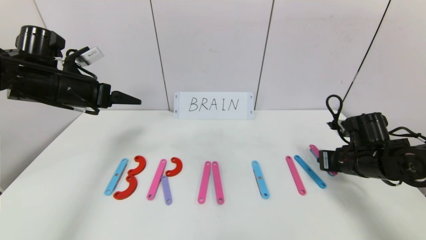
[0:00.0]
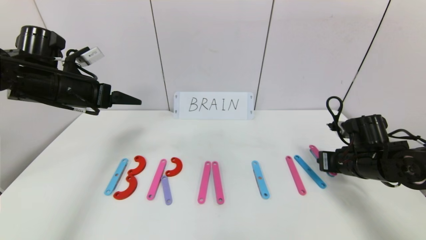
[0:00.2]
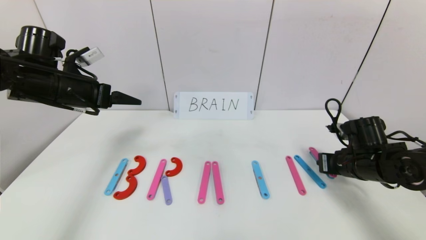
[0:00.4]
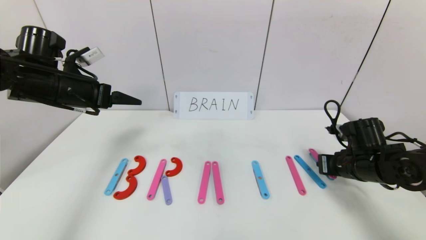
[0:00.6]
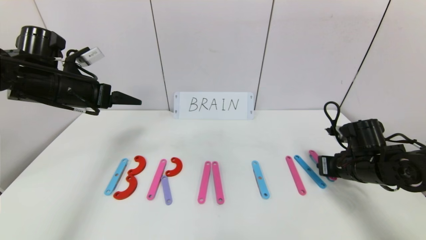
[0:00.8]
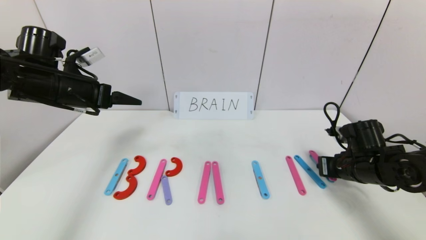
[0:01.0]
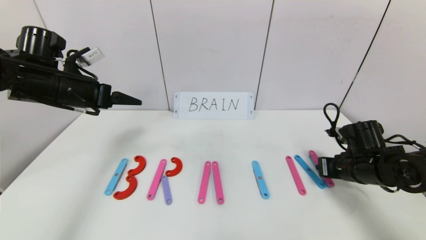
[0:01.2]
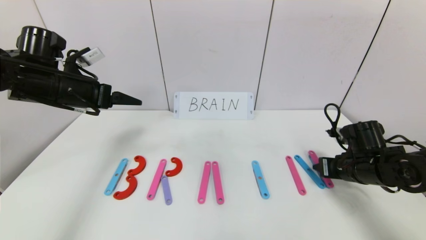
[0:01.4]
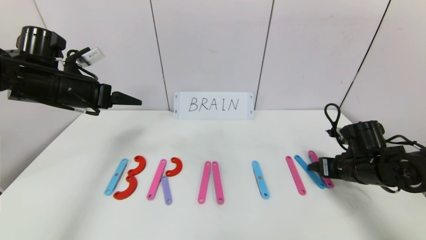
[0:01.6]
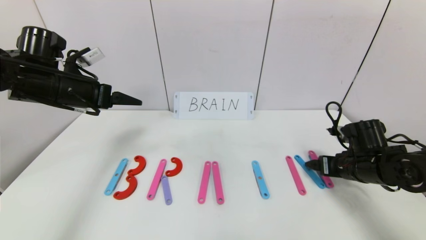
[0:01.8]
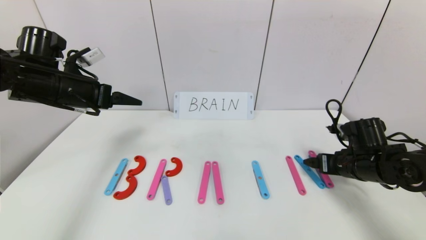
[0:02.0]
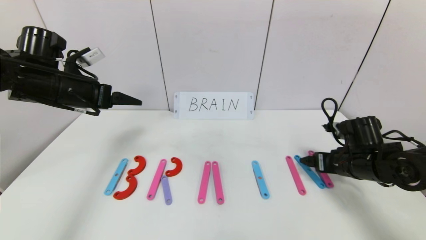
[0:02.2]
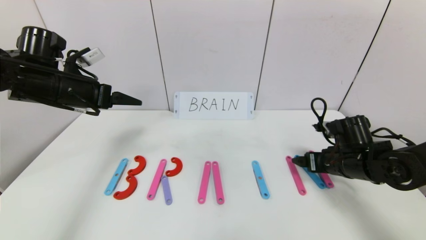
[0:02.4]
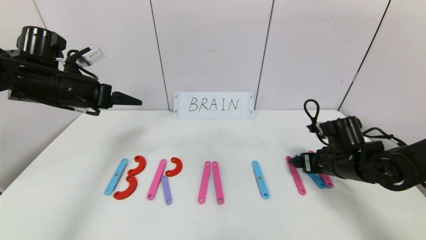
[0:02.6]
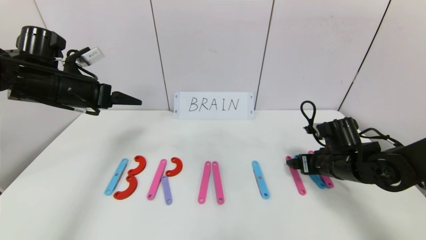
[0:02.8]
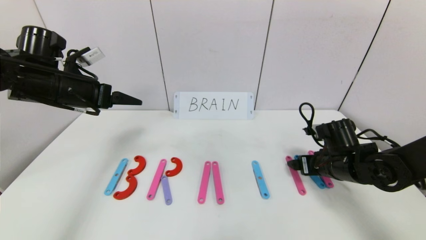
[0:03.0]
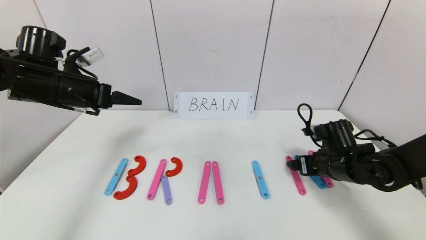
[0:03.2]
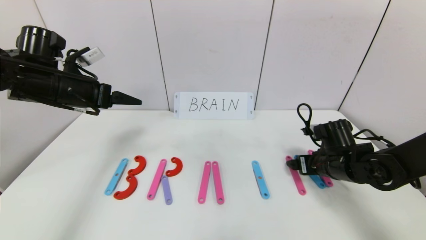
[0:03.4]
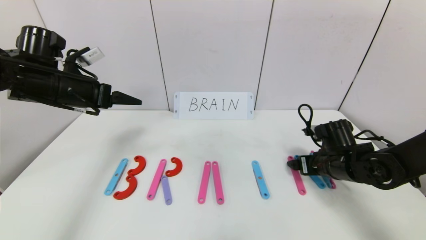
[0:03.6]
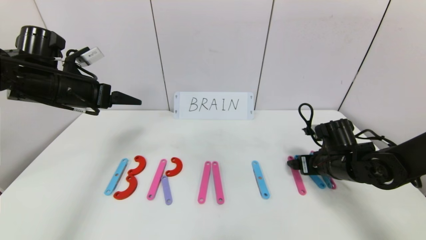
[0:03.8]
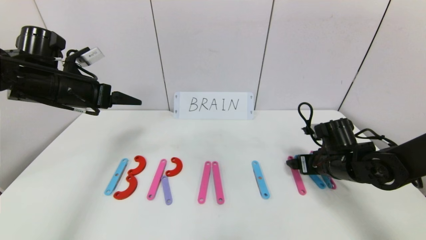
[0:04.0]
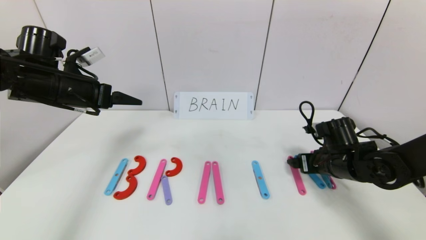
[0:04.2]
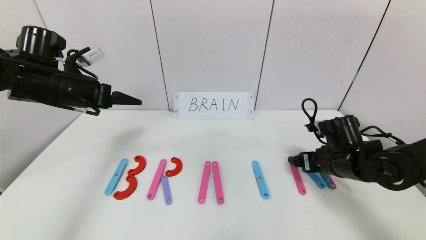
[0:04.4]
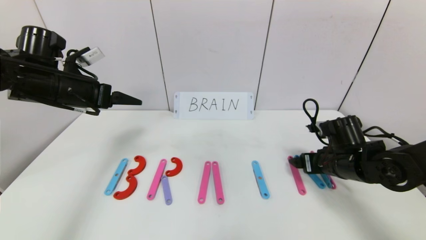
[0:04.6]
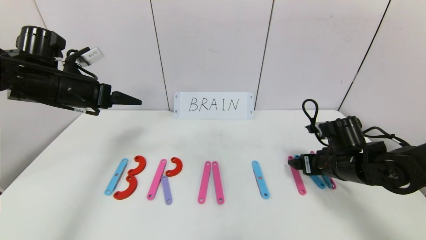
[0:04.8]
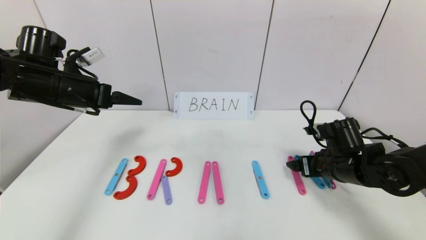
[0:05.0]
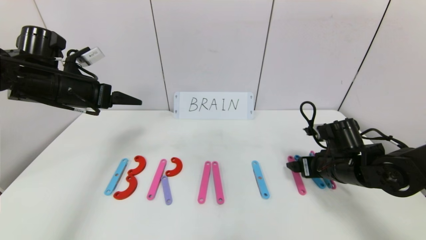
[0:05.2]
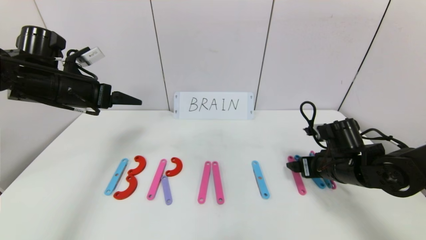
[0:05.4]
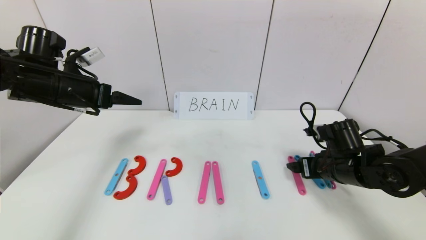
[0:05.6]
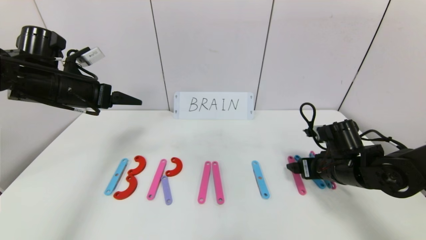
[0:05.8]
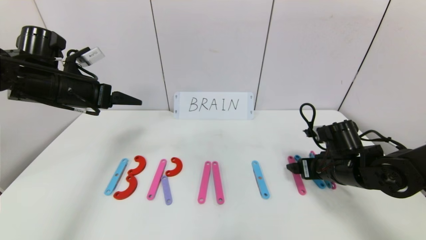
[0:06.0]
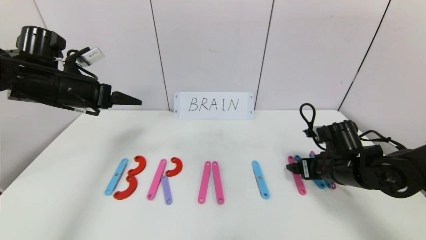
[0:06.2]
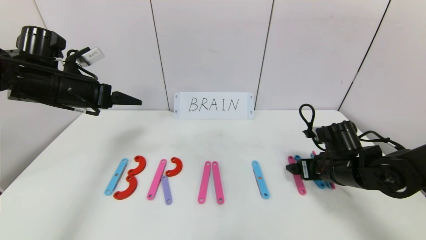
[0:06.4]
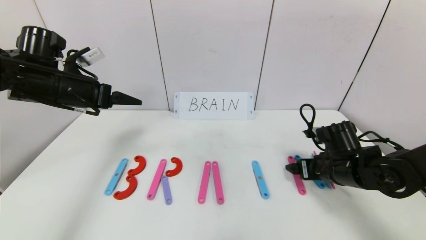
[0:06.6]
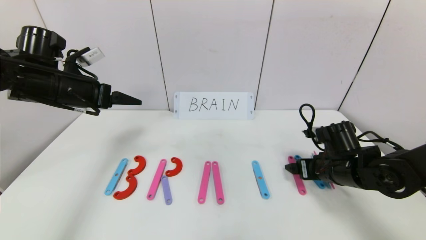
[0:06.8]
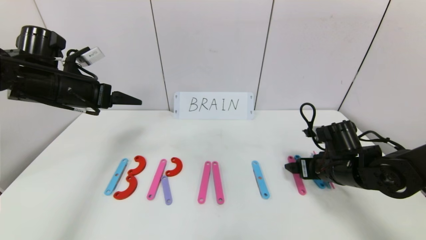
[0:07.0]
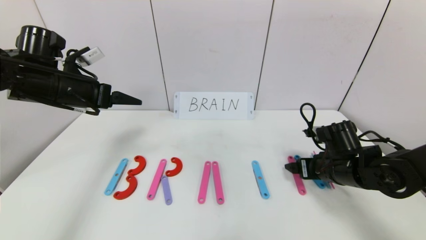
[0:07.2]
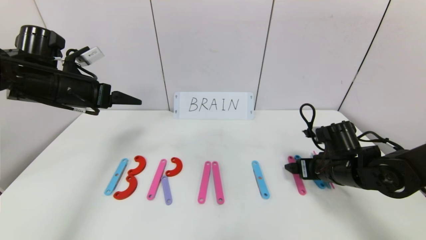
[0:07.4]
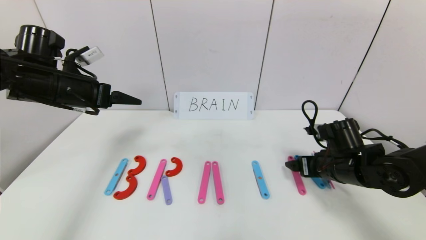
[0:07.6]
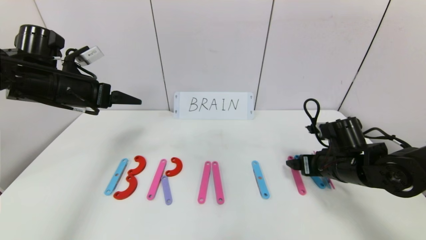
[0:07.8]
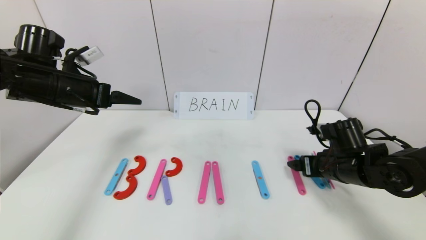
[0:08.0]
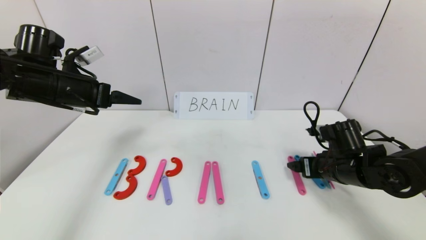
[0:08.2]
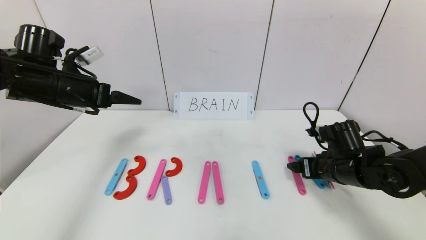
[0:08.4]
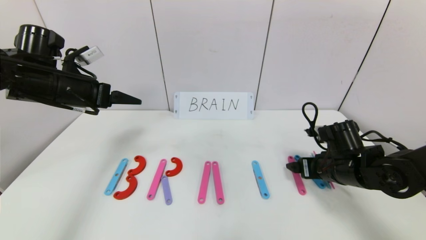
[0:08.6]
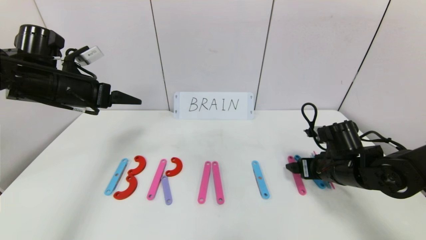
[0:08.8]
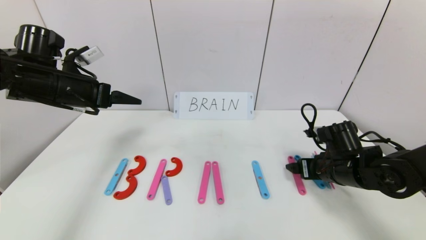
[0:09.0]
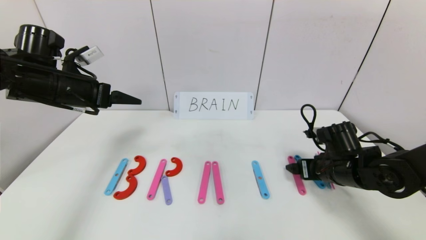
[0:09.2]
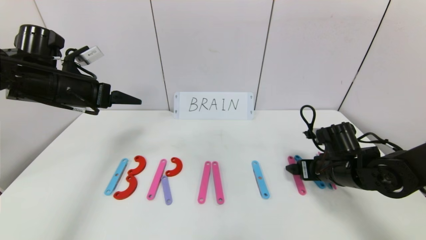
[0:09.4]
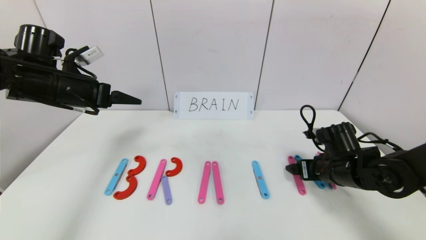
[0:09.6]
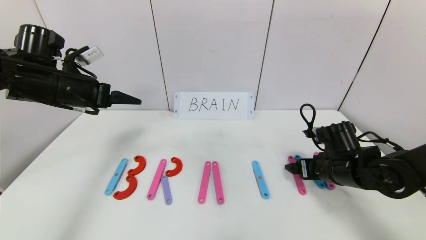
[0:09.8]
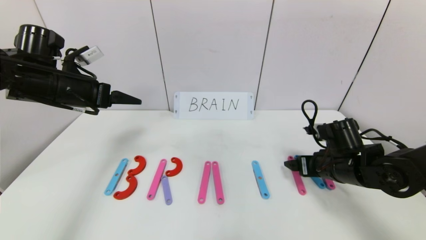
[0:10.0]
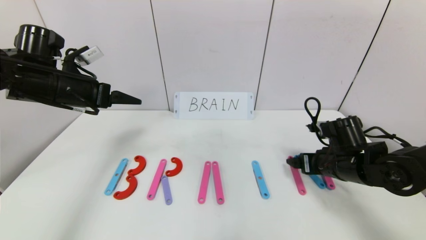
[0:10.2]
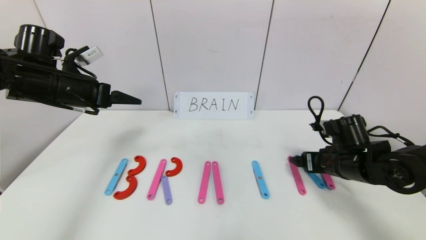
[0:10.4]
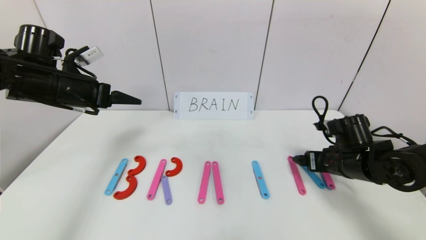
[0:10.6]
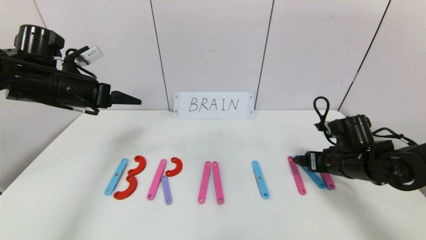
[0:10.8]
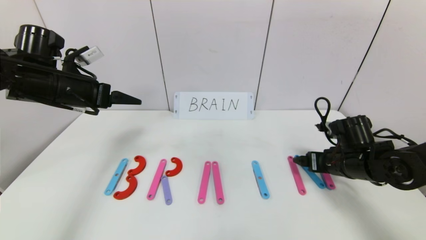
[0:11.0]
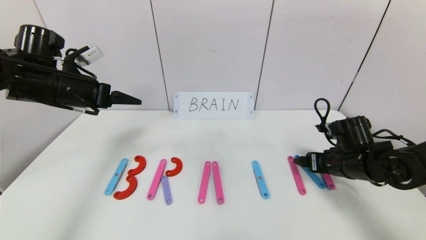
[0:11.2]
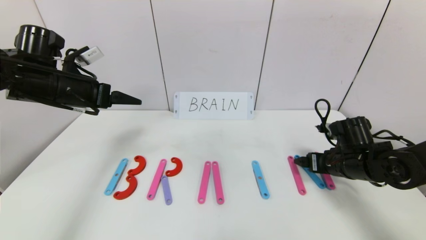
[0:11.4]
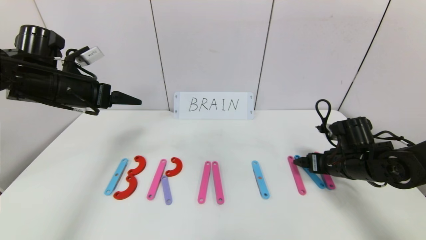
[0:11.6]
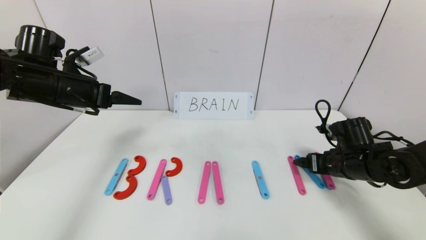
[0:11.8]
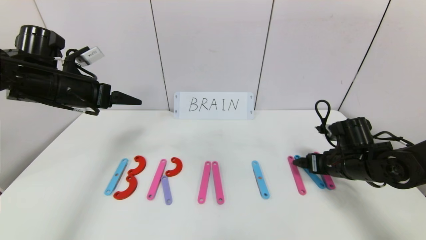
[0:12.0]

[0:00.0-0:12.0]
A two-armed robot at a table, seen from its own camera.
Task of the whole recording: rearrange the word baai as brain.
0:00.0 to 0:01.6: The right gripper opens up.
0:01.6 to 0:03.0: The grippers stay close to where they were, moving slightly.
0:03.0 to 0:04.4: Both grippers stay about where they are.
0:04.4 to 0:06.0: The grippers make only small movements.
0:06.0 to 0:09.0: Both grippers stay about where they are.
0:09.0 to 0:12.0: The grippers move only a little.

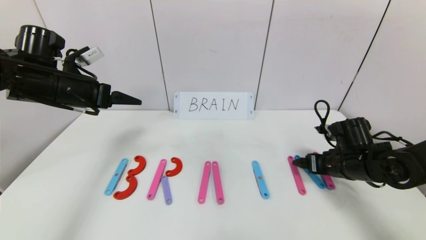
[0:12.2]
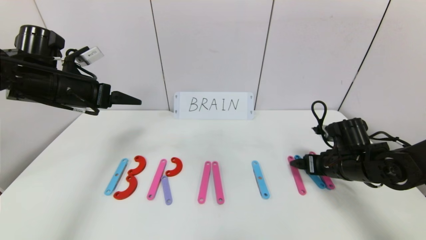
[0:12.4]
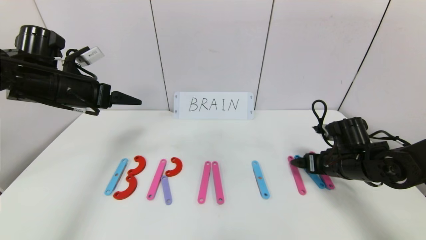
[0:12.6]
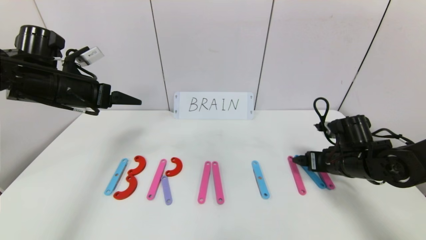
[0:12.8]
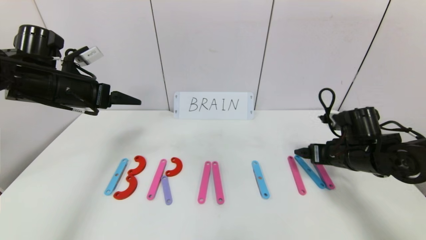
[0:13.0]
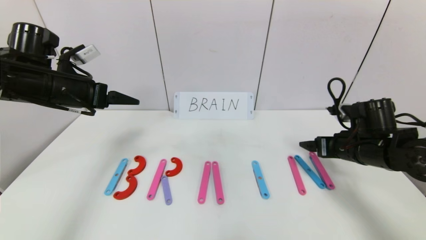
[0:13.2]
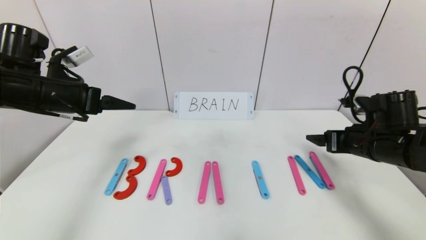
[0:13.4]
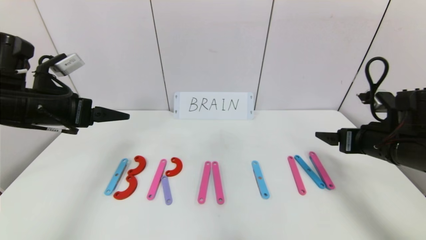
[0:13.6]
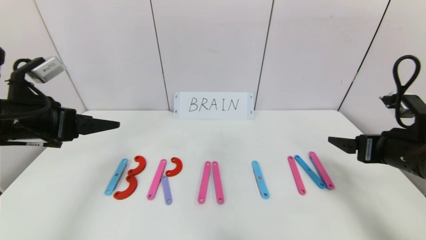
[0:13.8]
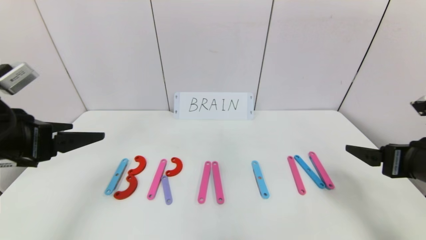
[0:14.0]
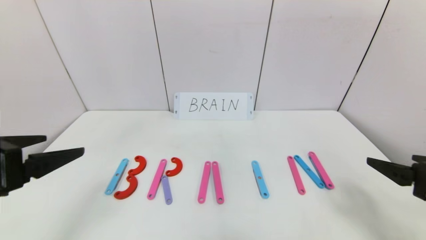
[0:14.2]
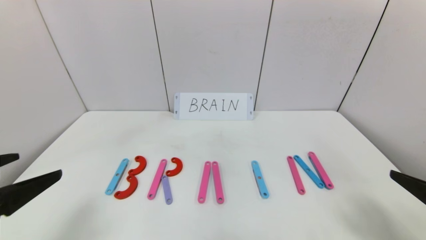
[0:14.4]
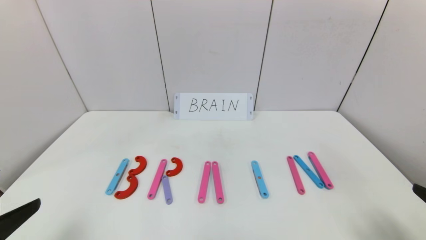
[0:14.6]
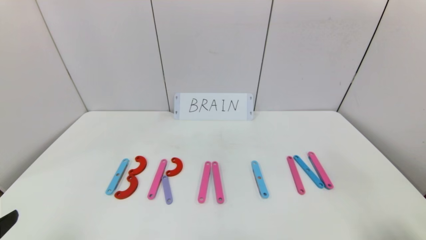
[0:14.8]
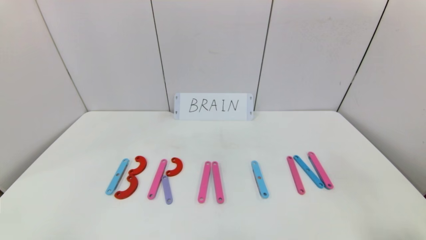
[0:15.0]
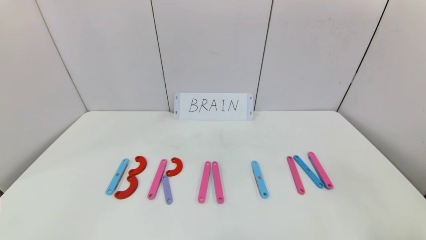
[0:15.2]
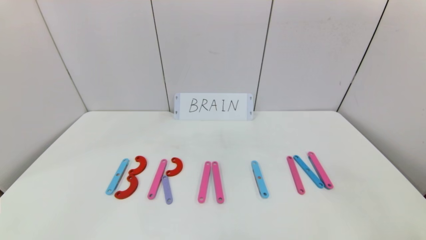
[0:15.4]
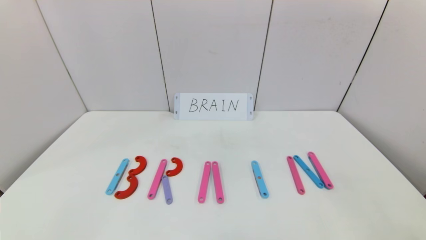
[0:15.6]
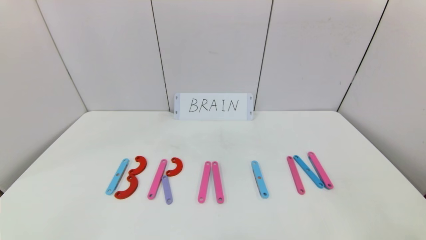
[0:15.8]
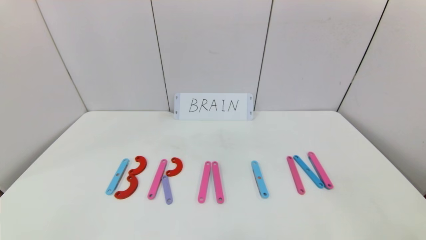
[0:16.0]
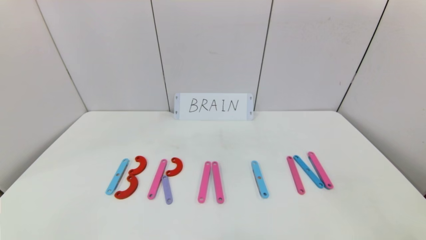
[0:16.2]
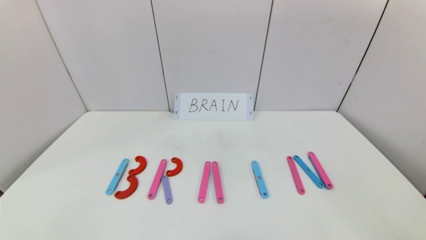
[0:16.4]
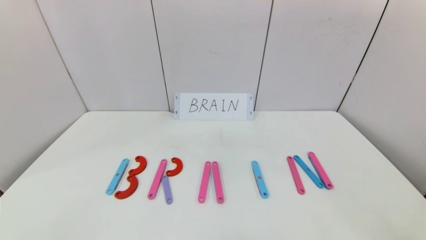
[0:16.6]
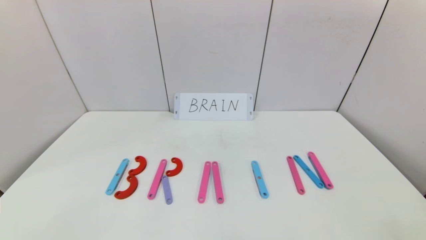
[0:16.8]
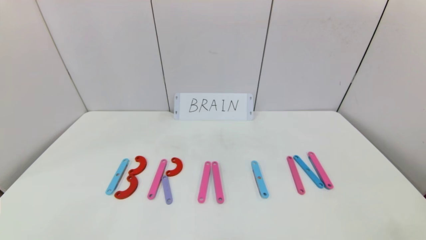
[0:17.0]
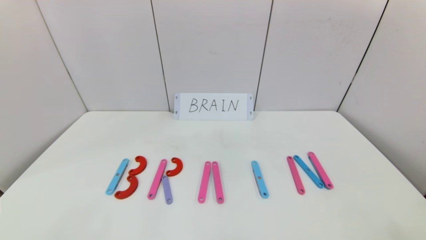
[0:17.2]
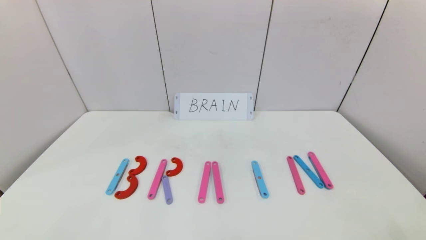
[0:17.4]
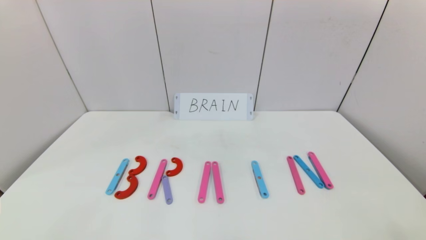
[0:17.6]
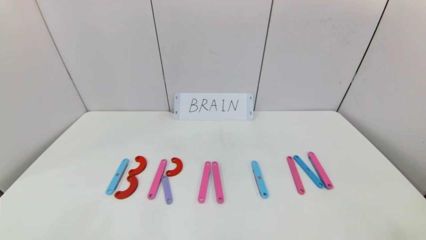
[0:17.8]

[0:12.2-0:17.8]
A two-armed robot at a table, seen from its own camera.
Task of the whole recording: rearrange the word baai as brain.
0:12.2 to 0:13.6: The right gripper is displaced upward and backward by roughly 10 cm. Meanwhile the left gripper moves backward, some 5 cm.
0:13.6 to 0:15.0: The grippers both shift backward by some 25 cm.
